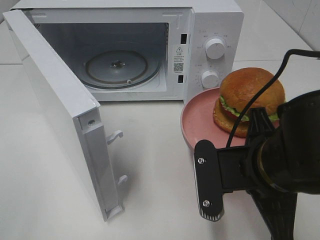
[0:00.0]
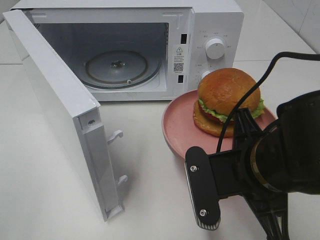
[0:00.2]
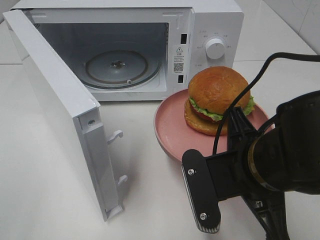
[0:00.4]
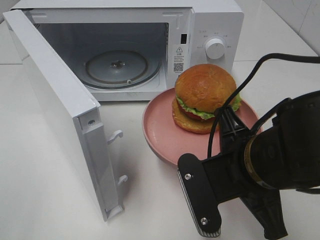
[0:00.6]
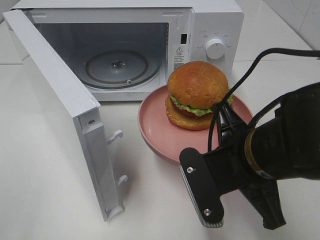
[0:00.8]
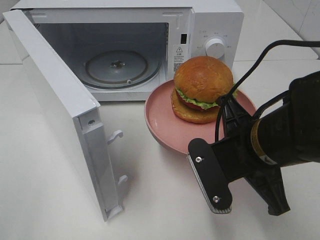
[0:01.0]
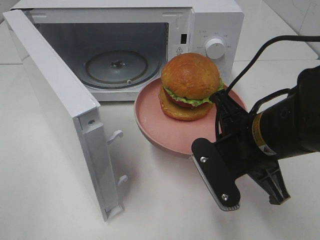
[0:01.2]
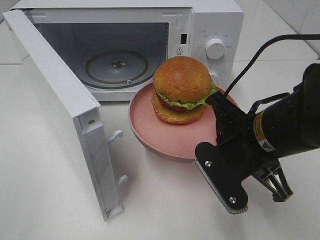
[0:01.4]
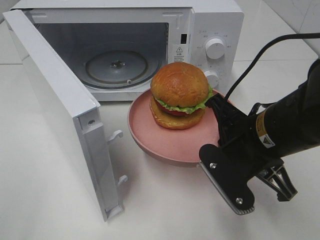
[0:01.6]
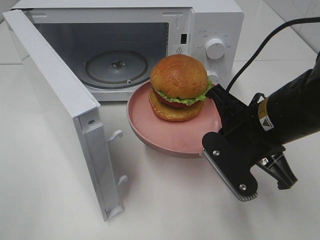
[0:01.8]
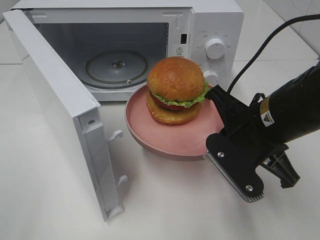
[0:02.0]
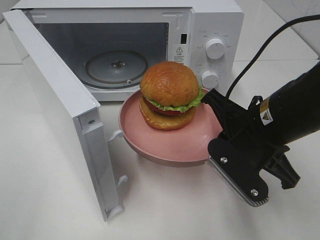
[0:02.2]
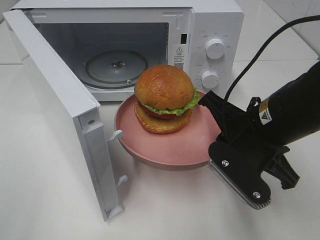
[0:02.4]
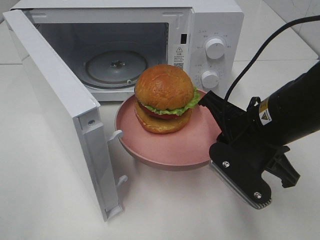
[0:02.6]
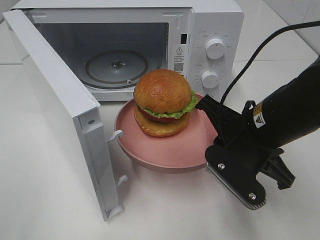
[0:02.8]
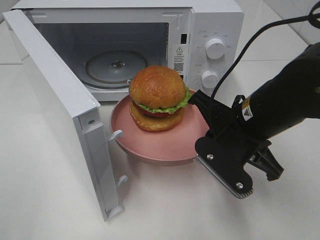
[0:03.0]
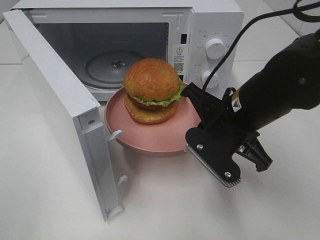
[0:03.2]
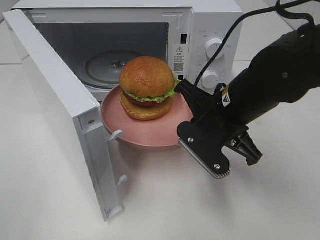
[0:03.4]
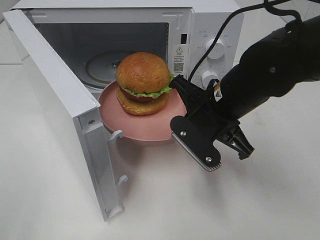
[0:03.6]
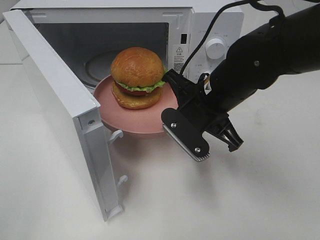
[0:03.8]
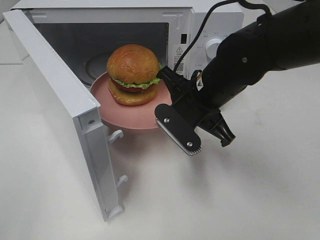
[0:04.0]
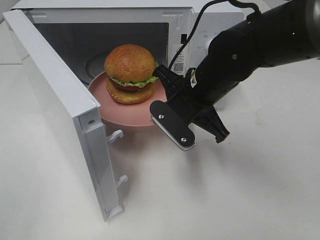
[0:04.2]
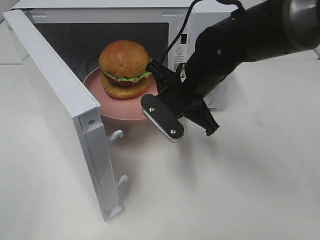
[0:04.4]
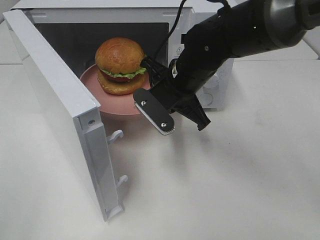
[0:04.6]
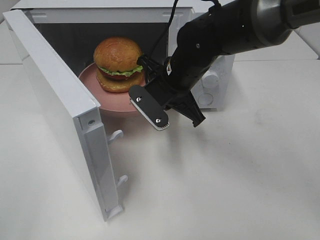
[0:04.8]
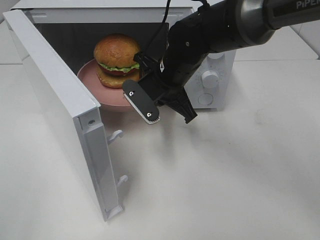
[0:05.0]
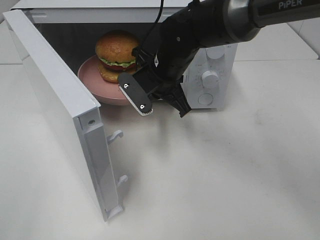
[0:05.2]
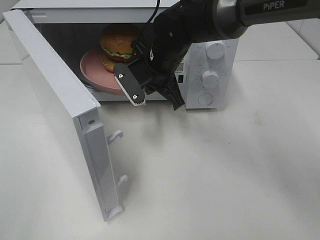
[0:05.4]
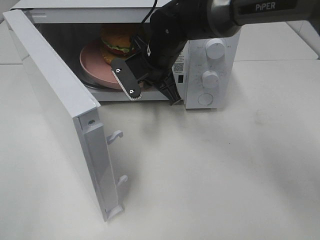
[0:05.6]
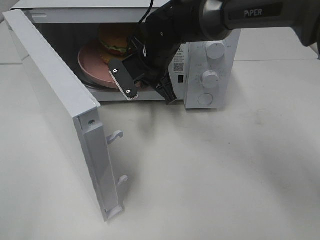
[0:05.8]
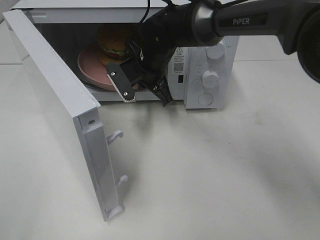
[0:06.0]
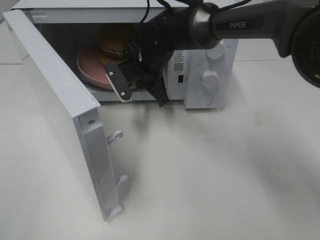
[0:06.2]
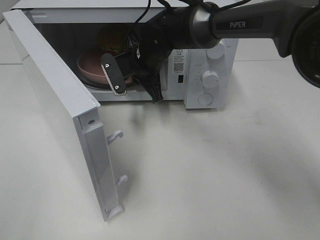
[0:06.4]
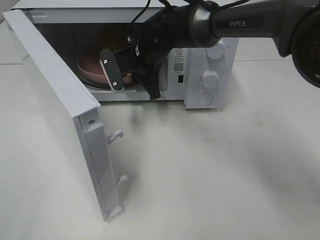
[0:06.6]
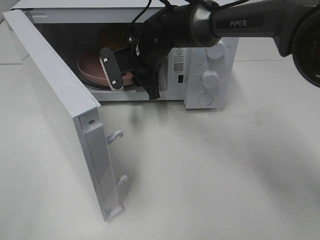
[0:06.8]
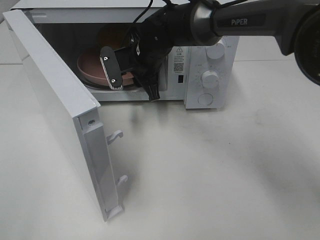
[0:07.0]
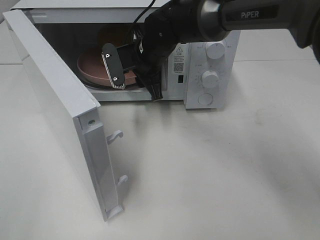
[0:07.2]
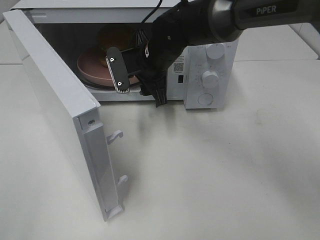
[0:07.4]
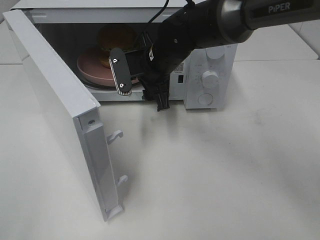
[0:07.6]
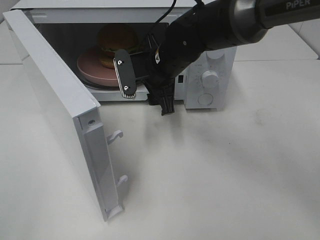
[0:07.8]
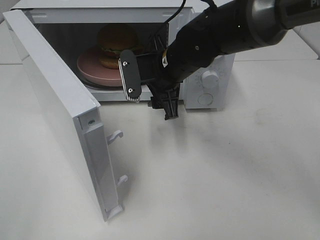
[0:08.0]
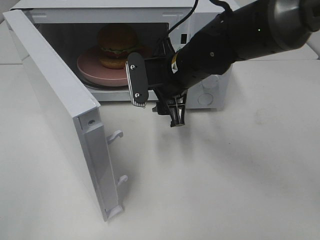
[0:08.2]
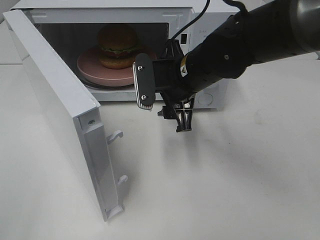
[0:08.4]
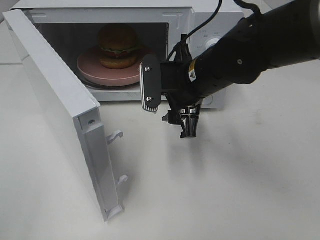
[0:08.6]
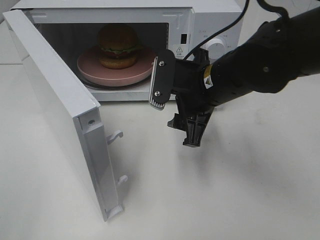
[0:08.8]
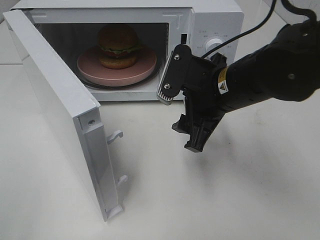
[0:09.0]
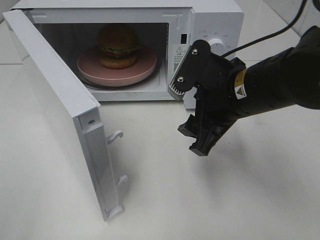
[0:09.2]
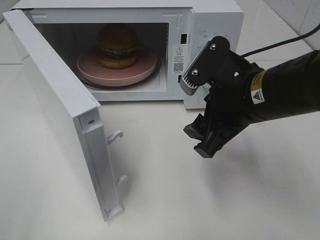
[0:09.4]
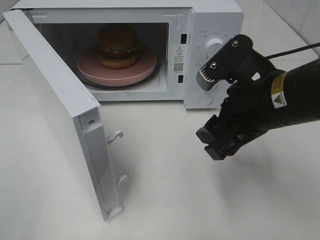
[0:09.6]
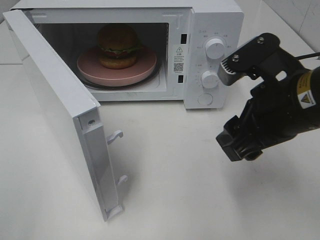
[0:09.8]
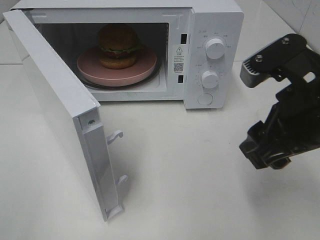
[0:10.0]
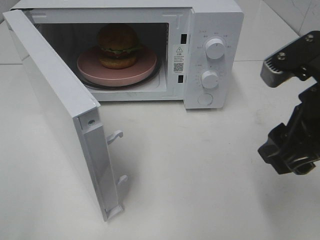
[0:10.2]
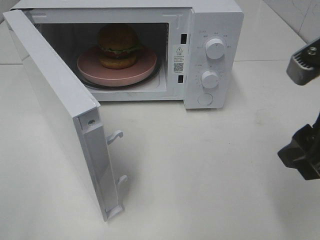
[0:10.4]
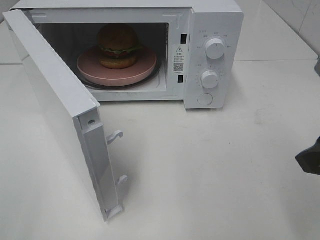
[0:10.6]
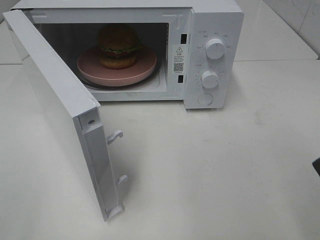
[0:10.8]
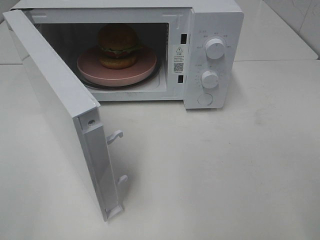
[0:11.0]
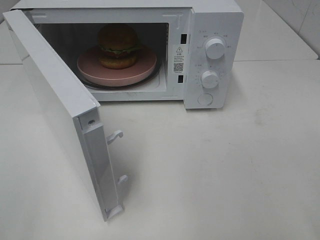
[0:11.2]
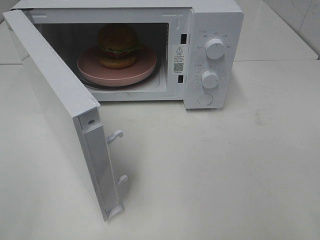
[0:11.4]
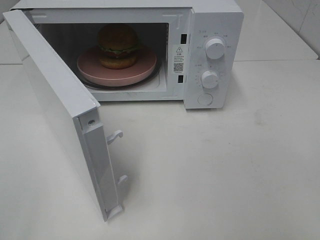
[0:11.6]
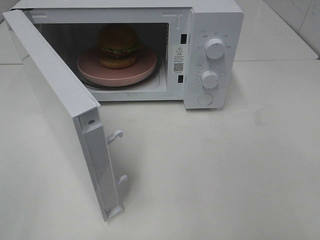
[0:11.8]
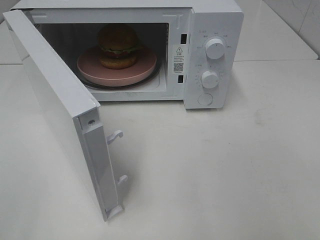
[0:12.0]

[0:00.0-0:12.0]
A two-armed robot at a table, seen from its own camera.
Task of the whole recording: Heat the burger.
Step, 0:00.0 to 0:06.8: Right hand: place the plate in the microwave.
0:00.0 to 0:01.6: The right gripper moves about 5 cm.
0:01.6 to 0:03.0: The grippers move only a little.
0:03.0 to 0:04.4: The right gripper heads forward and to the left, covering approximately 10 cm.
0:04.4 to 0:06.0: The right gripper is displaced forward and to the left by some 10 cm.
0:06.0 to 0:07.6: The right gripper opens up.
0:07.6 to 0:09.0: The right gripper is displaced backward and to the right by approximately 15 cm.
0:09.0 to 0:10.4: The right gripper moves backward, to the right and upward, roughly 20 cm.
0:10.4 to 0:12.0: The right gripper travels backward and to the right by about 15 cm.

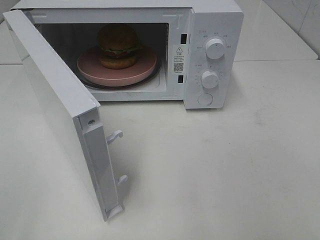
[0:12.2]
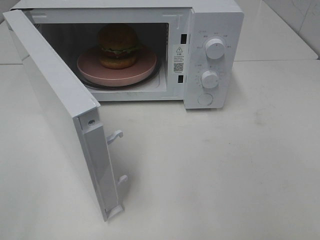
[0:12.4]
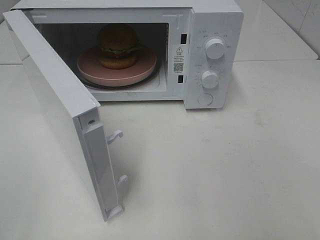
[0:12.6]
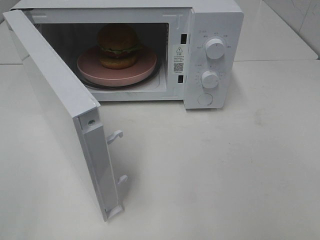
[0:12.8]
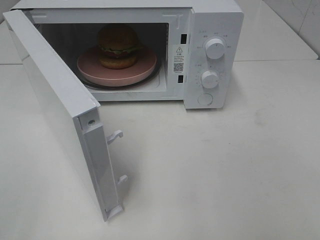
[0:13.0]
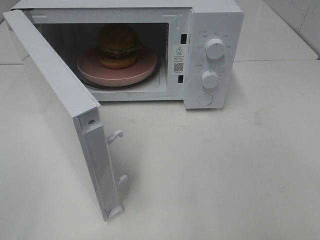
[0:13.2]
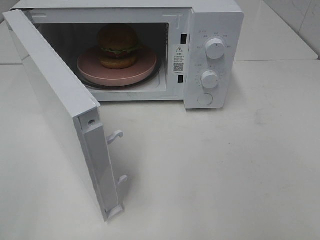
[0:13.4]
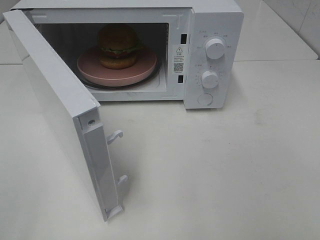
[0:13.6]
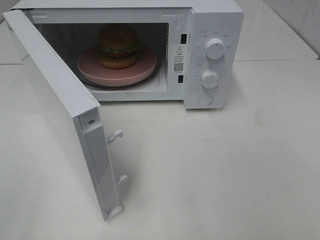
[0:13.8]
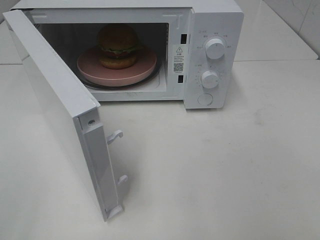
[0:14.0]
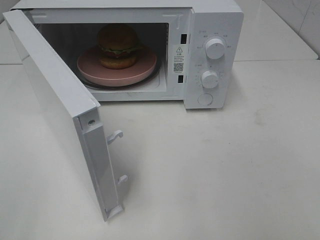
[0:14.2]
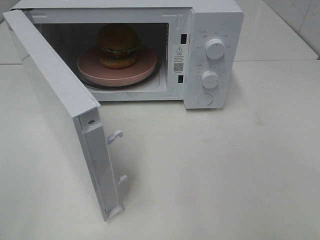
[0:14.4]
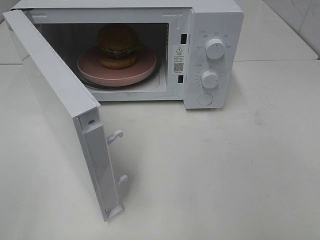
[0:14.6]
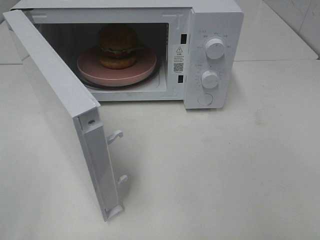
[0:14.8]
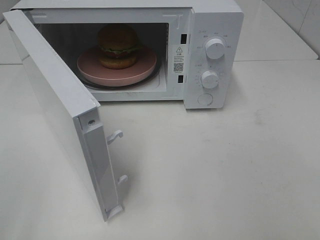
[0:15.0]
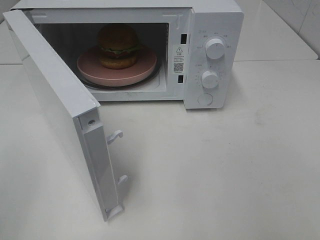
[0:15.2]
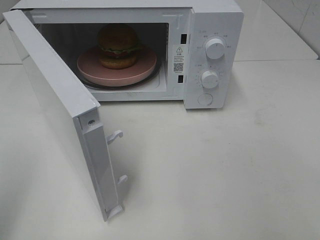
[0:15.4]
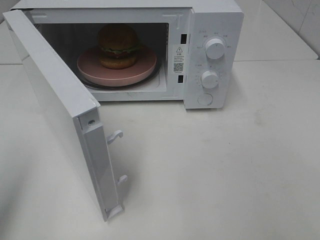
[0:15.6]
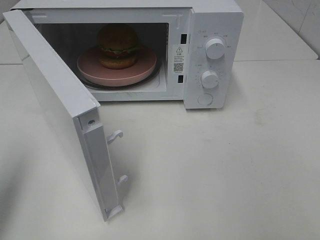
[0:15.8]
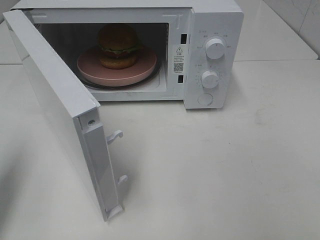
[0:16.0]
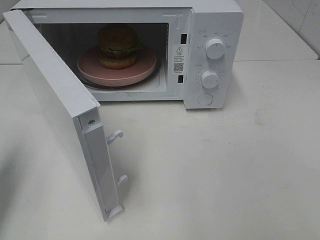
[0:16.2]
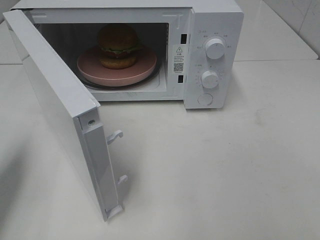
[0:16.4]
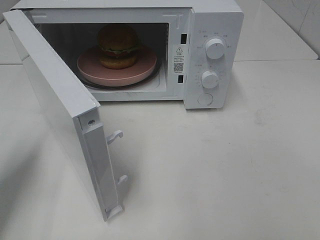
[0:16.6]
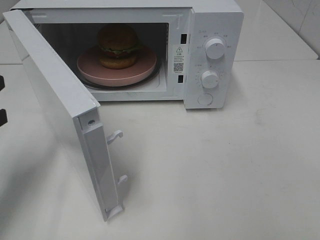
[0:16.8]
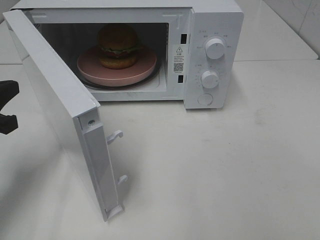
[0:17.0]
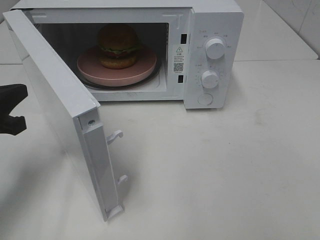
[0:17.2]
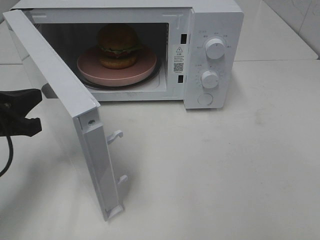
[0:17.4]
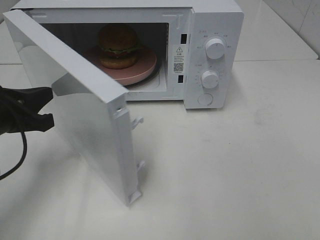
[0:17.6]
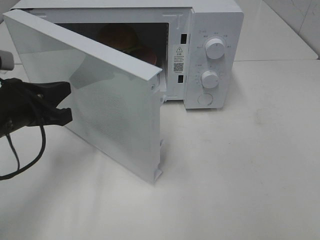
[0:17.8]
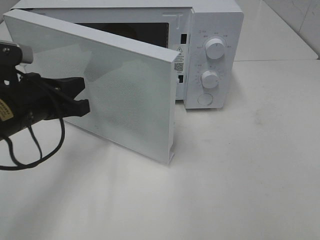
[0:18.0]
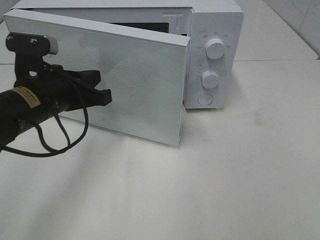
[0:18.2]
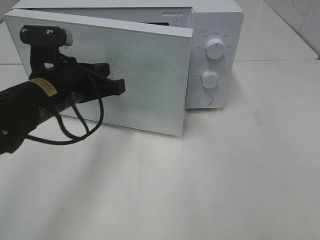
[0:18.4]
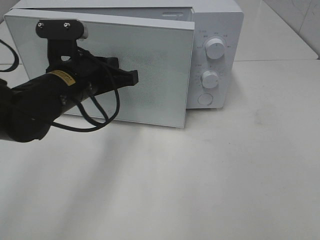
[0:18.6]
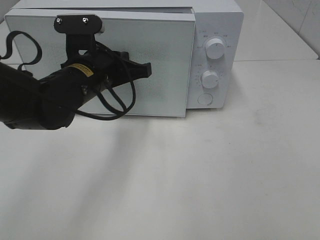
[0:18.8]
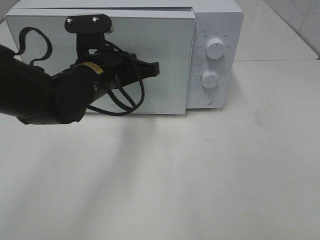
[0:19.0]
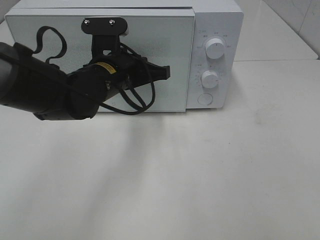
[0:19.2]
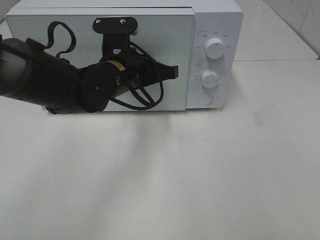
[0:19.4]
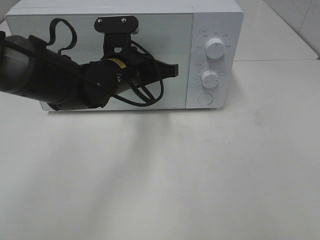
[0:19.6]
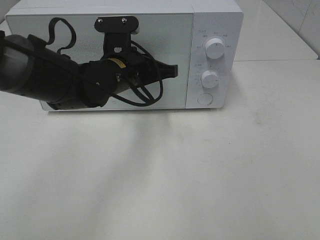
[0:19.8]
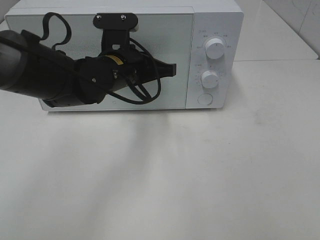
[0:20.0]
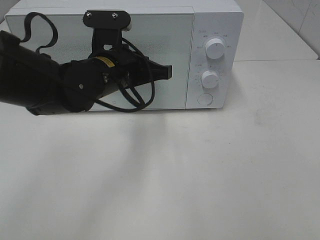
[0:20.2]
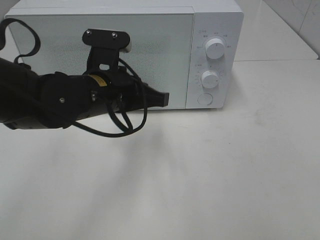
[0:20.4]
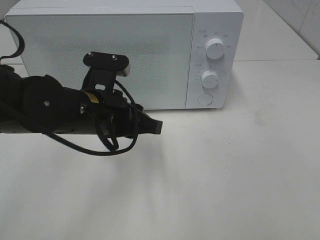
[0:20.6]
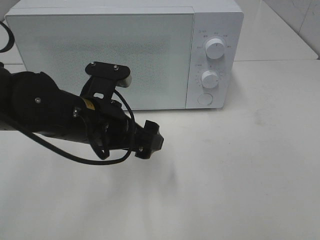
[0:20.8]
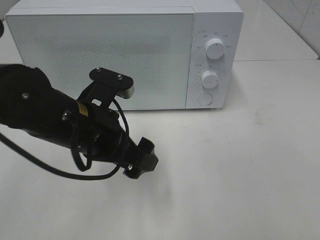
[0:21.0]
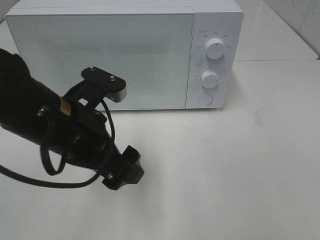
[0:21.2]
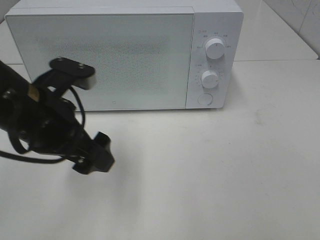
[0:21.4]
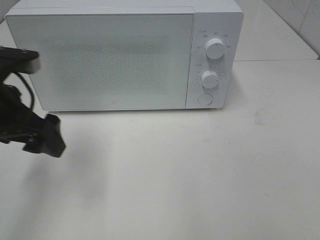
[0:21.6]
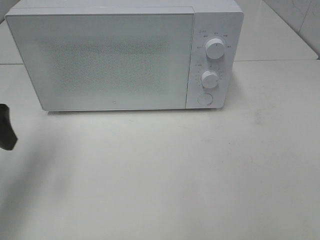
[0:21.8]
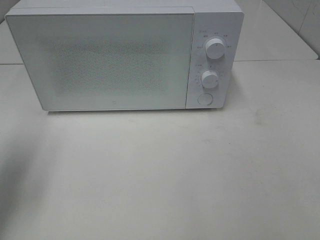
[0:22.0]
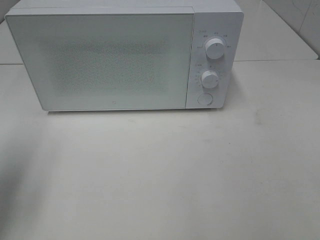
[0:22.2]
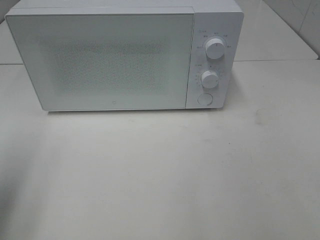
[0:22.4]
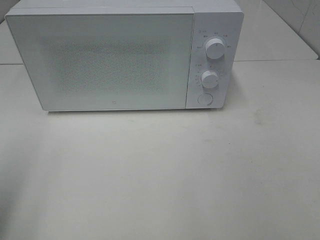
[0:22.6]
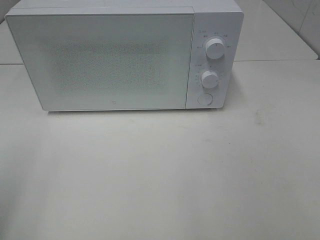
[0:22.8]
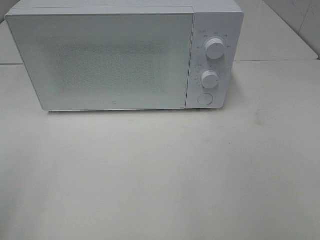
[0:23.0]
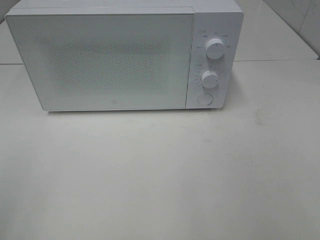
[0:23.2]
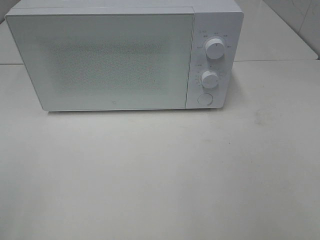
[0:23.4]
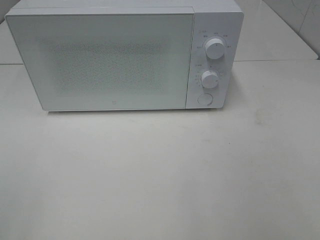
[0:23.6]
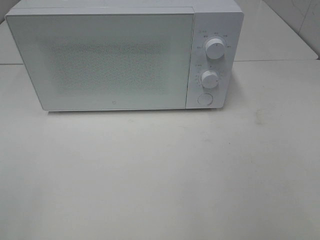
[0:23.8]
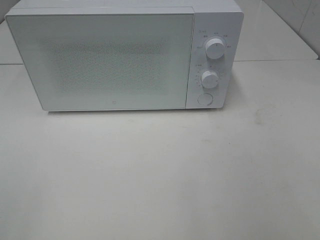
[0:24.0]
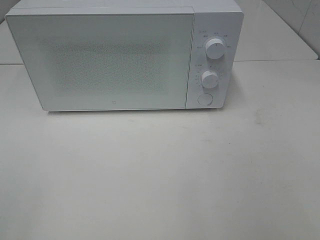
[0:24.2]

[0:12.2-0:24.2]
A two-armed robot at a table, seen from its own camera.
Task of the whole recording: Heat the burger.
Step, 0:12.2 to 0:20.2: Left hand: close the microwave door.
0:15.2 to 0:16.6: The left gripper travels forward and downward by some 20 cm, and closes.
0:16.6 to 0:18.2: The left gripper goes about 15 cm to the right and forward.
0:18.2 to 0:19.8: The left gripper is displaced to the right and forward by some 10 cm.
0:19.8 to 0:21.2: The left gripper is displaced backward and to the left by roughly 15 cm, and opens.
0:21.2 to 0:22.6: The left gripper moves to the left, upward and backward, roughly 25 cm.
0:22.6 to 0:24.2: The left gripper shifts about 10 cm backward.
